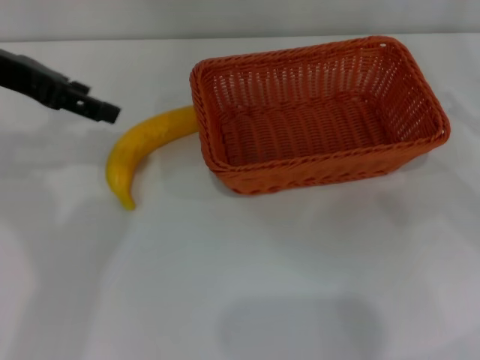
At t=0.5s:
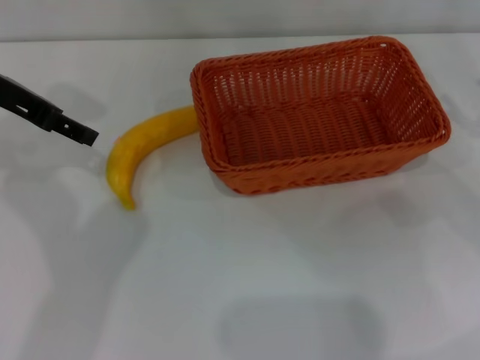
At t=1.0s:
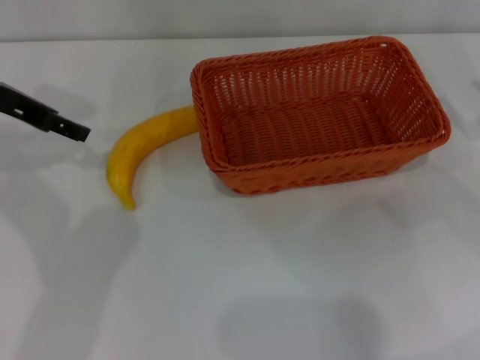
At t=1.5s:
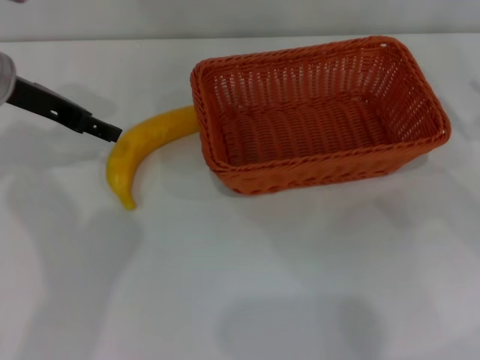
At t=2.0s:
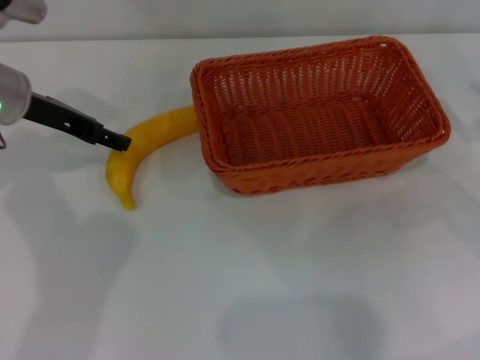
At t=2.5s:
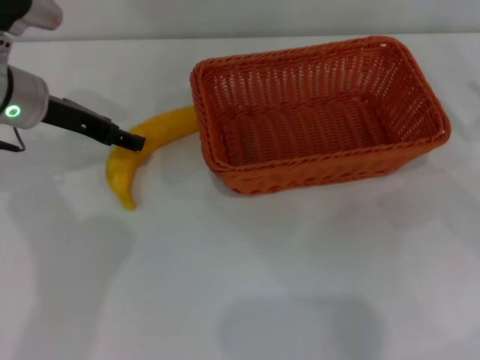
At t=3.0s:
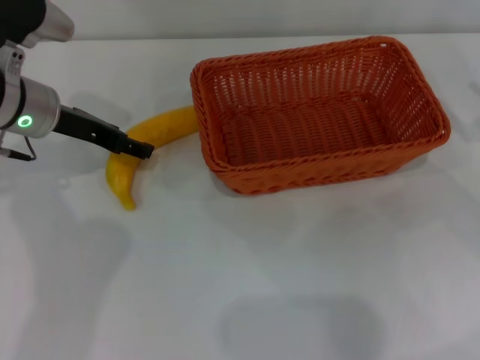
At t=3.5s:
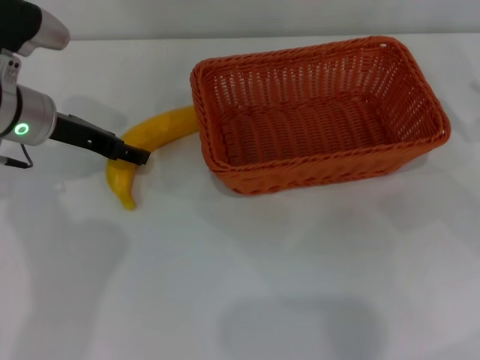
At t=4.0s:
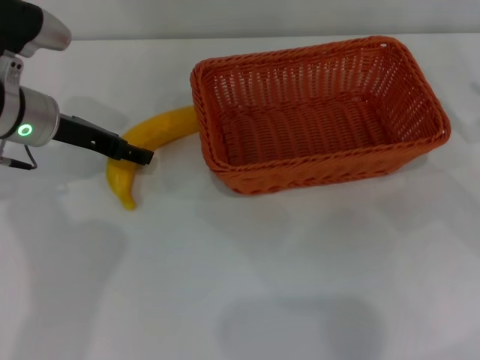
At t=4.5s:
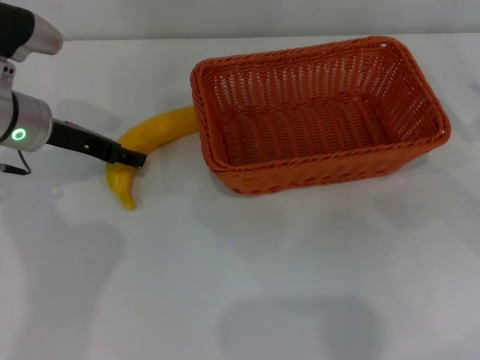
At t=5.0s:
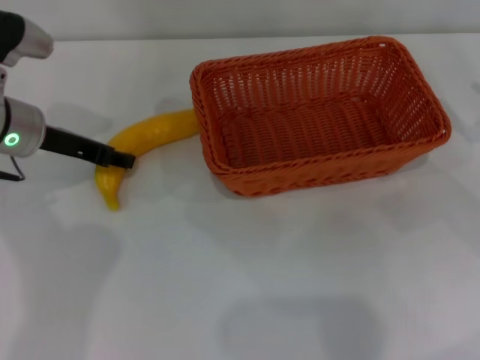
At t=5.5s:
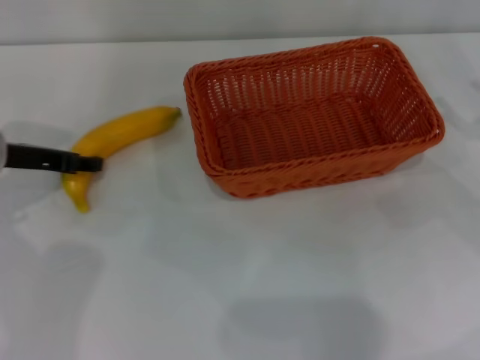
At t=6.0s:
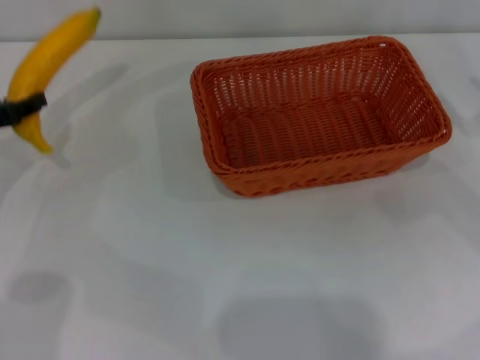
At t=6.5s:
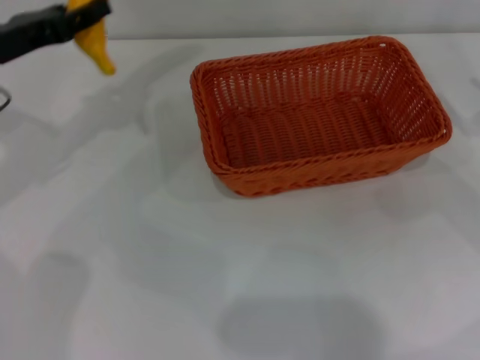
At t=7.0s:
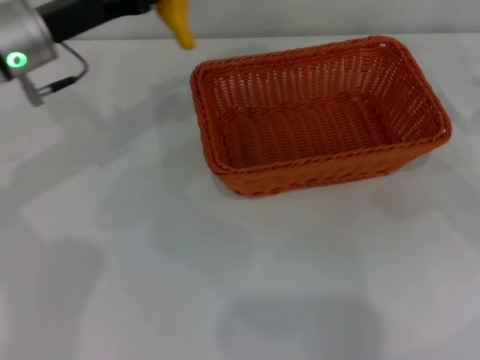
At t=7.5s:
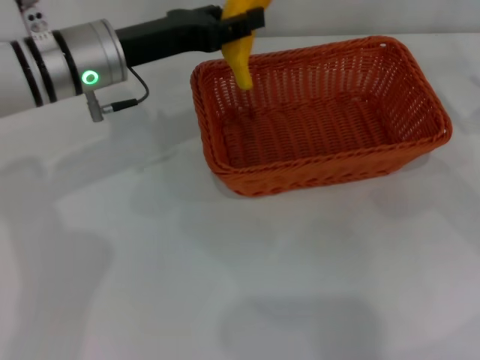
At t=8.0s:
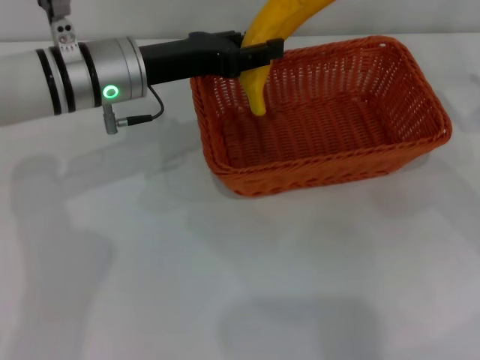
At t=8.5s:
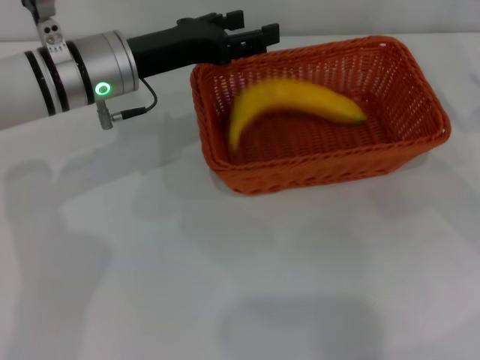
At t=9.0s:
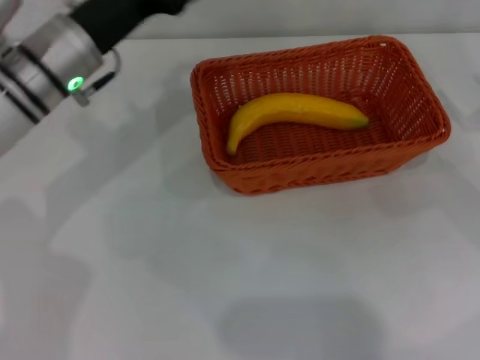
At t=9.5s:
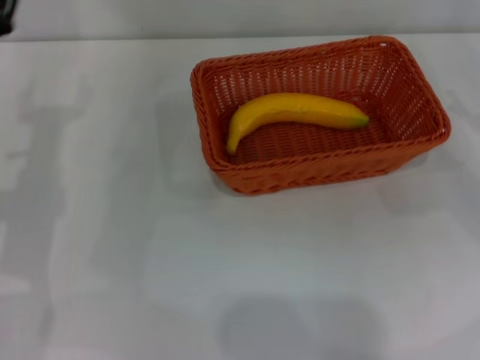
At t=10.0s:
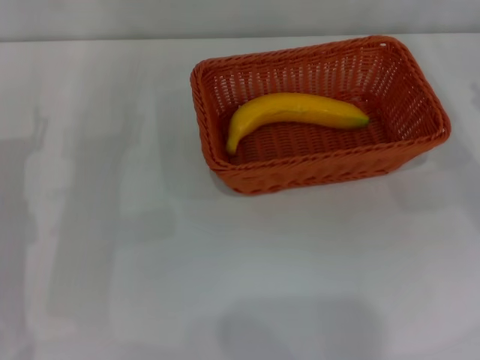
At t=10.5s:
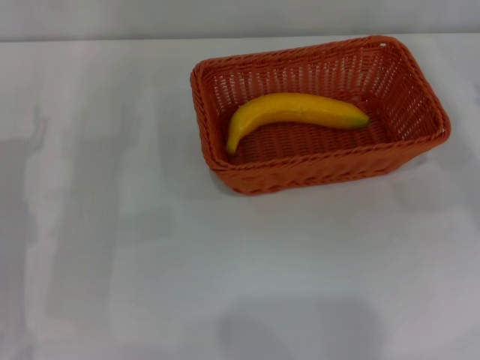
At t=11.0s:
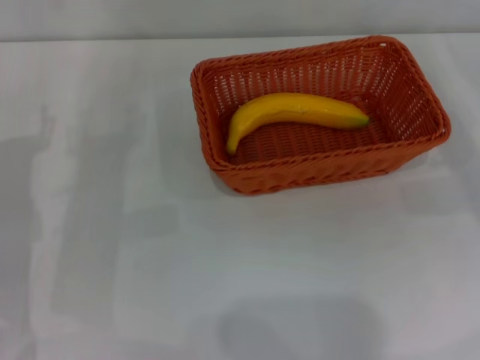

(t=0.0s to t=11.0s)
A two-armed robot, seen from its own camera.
Step, t=0.0s - t=5.5s: Pick up the banana with the left gripper.
Step, t=6.0s - t=8.5s: Place the banana into the light basket with the left gripper.
t=0.0s - t=2.0s: The left gripper is displaced downward by about 10 cm.
t=2.0s - t=3.5s: The grippers make only small movements.
t=3.5s - t=5.5s: The left gripper moves to the left, about 5 cm, and closes its fingers.
t=5.5s - t=7.5s: The left gripper travels to the right and upward by roughly 15 cm.
t=7.5s - t=9.0s: The left gripper opens.
t=9.0s - t=11.0s: The left gripper heads backward, to the left and downward, covering some 15 cm.
